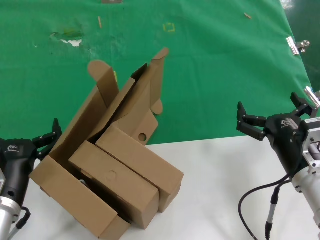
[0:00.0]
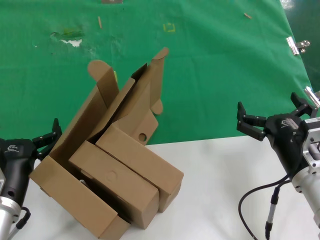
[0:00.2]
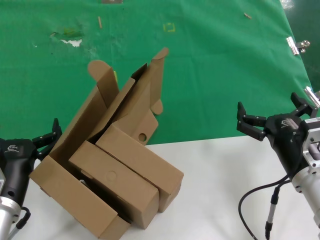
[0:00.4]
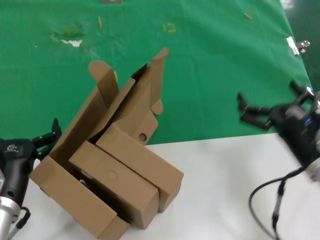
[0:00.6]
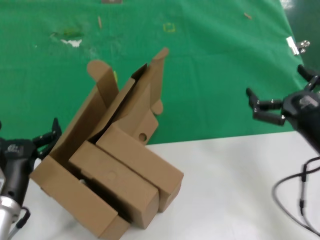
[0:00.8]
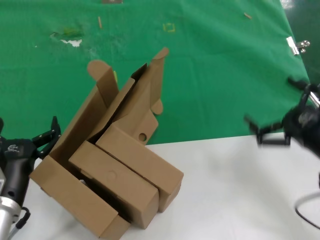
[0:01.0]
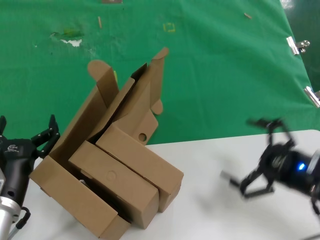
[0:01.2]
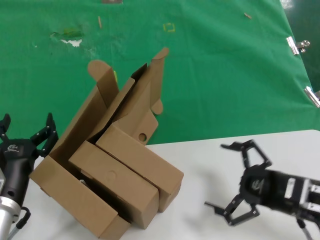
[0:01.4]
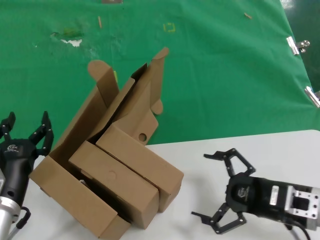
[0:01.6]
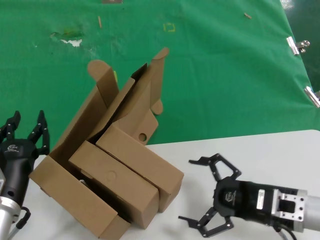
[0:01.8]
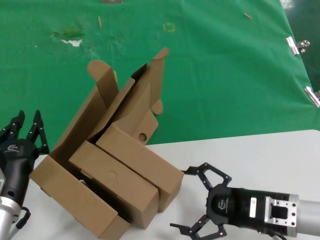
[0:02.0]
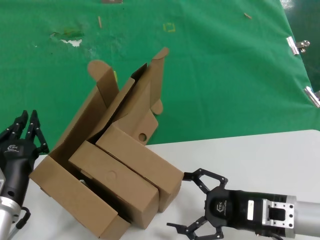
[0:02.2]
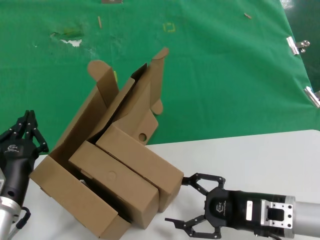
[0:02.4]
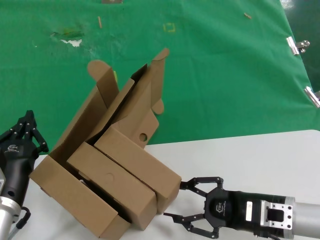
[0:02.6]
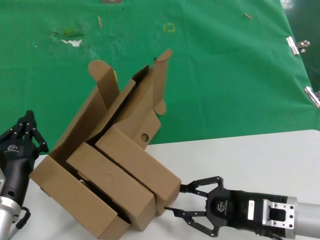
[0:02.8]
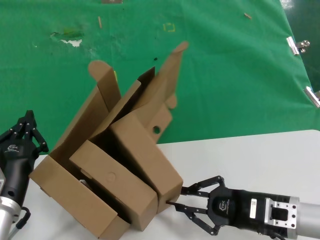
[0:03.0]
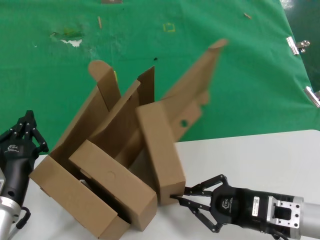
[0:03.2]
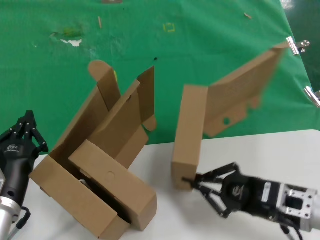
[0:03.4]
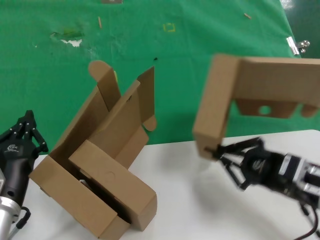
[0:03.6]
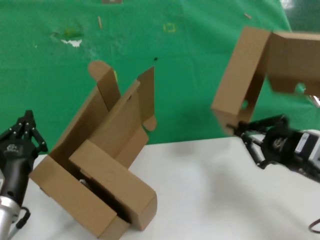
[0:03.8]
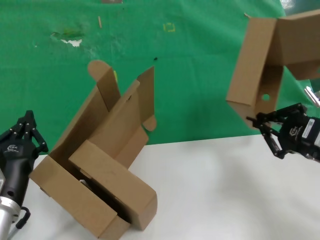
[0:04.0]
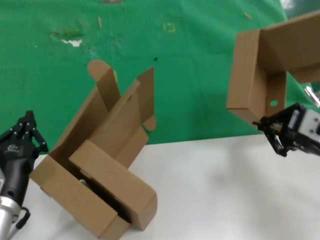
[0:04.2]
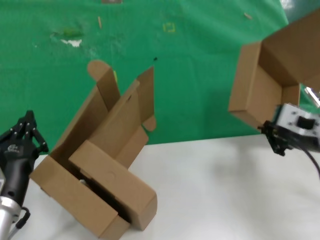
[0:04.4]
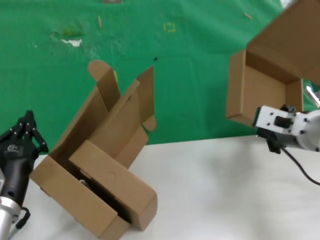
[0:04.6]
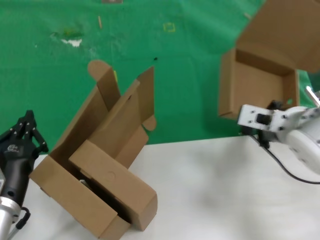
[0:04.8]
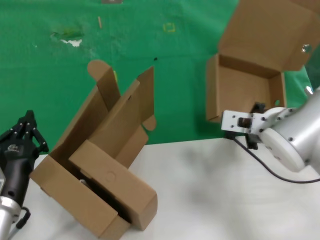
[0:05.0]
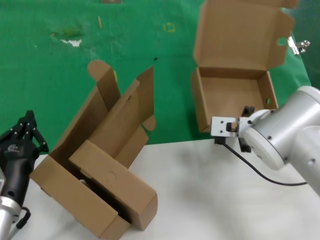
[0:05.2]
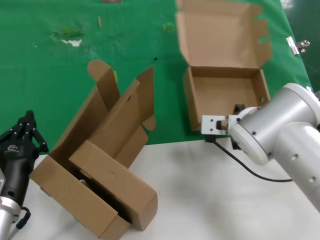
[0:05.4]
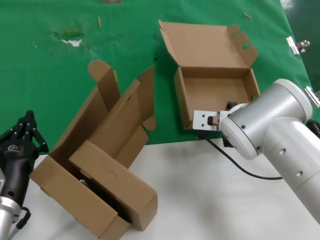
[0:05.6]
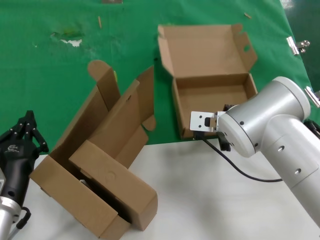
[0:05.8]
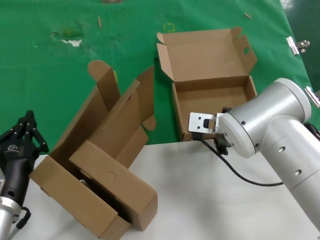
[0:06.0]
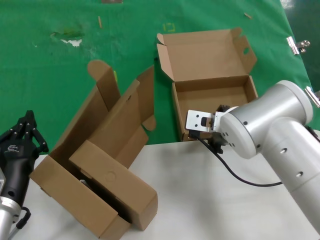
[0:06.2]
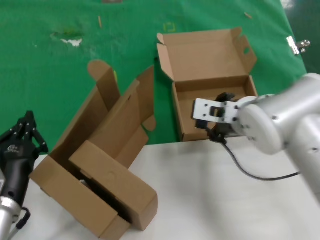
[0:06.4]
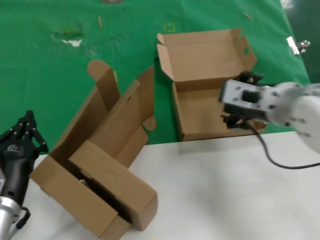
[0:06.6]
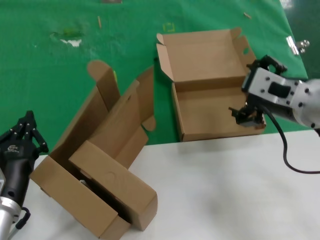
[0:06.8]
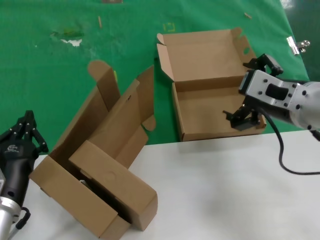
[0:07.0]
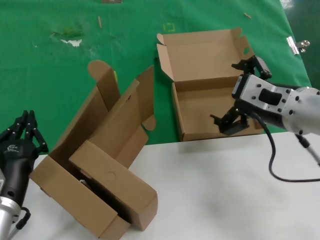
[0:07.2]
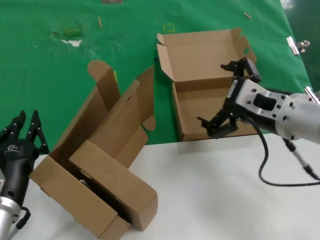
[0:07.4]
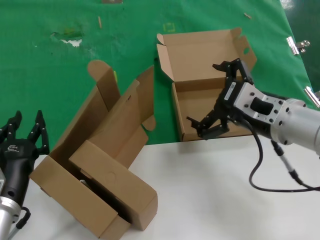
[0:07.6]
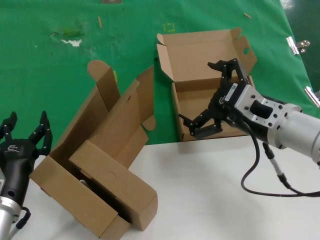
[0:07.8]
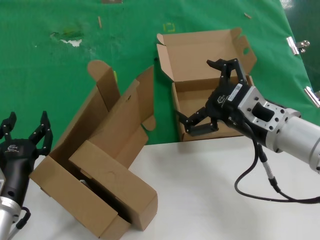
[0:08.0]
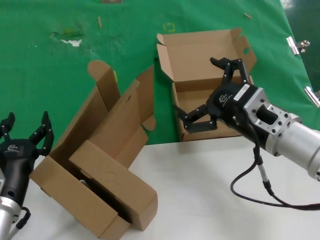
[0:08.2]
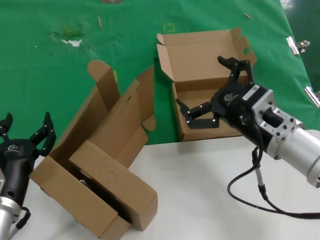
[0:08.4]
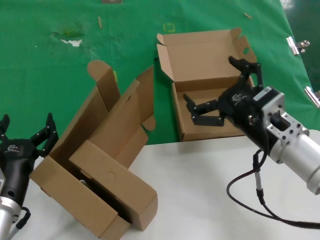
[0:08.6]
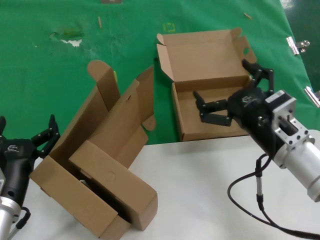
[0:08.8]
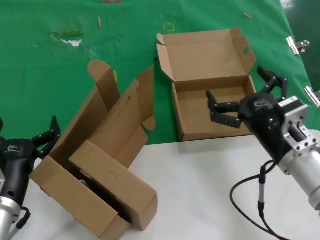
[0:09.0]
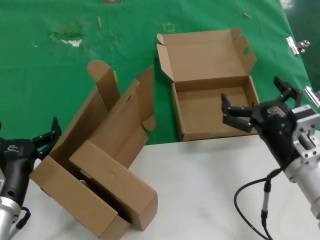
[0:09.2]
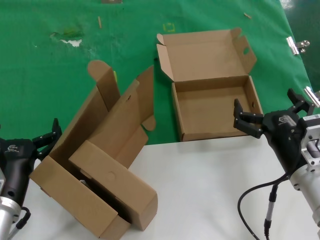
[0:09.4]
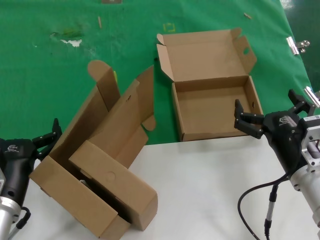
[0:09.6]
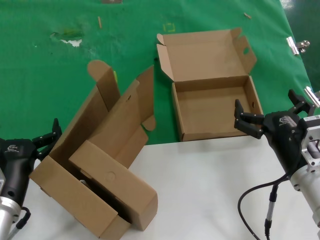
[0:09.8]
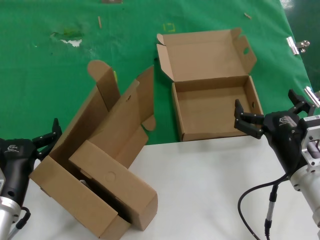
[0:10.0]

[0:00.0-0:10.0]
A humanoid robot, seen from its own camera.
Task of the whole recording: pick up the paper box and put it at the back.
Step, 0:00.0 to 0:03.0: Grasp the paper box.
Step, 0:03.2 to 0:05.8: Place the paper box on the table.
0:00.0 to 0:01.4: The right hand goes roughly 5 cm to the right.
0:01.4 to 0:02.8: The right hand is displaced to the left by roughly 5 cm.
0:02.8 to 0:04.2: The right hand goes about 15 cm upward.
0:04.2 to 0:05.8: The right hand travels to the left and forward by approximately 20 cm.
0:05.8 to 0:07.2: The right hand is displaced backward, to the right and upward by roughly 15 cm.
0:07.2 to 0:08.6: The right hand travels downward by approximately 10 cm.
0:08.6 to 0:10.0: The right hand shifts about 5 cm downward.
